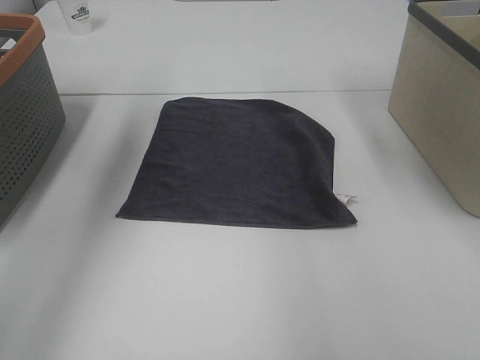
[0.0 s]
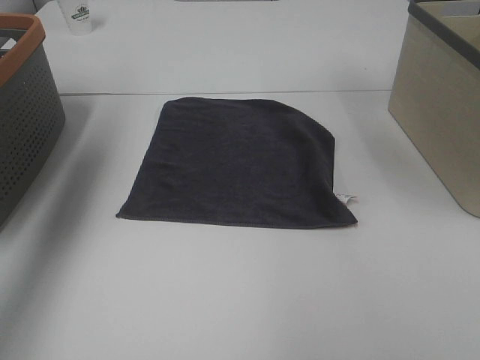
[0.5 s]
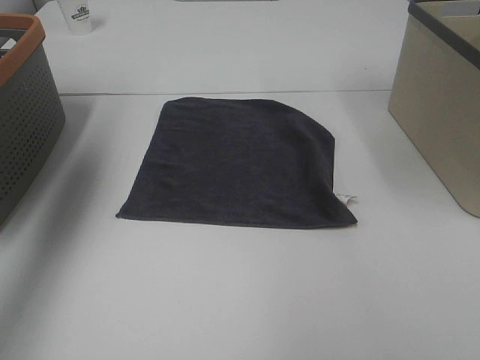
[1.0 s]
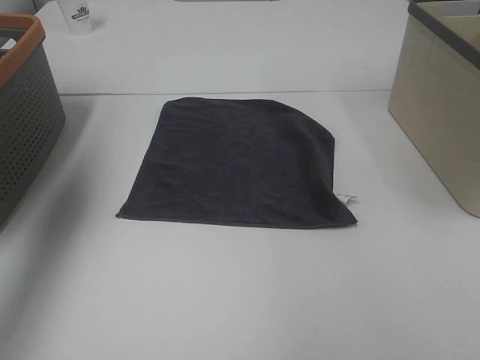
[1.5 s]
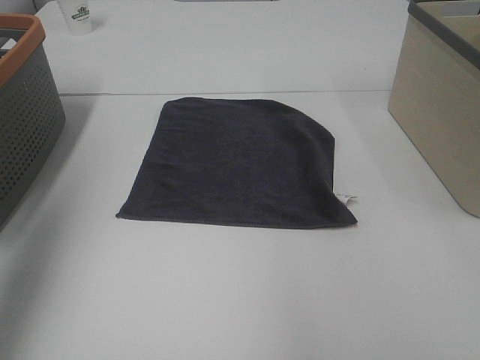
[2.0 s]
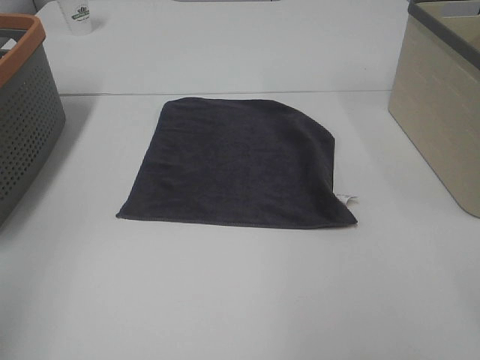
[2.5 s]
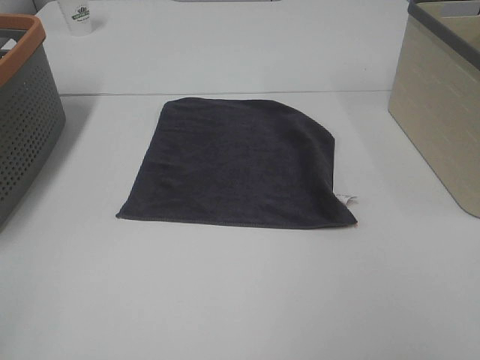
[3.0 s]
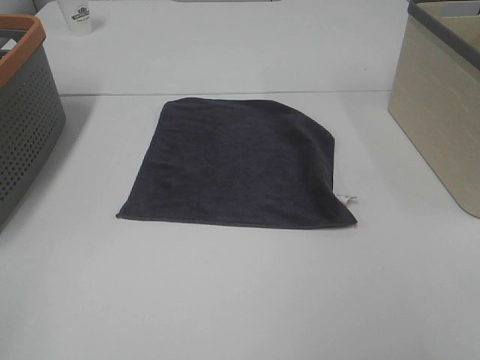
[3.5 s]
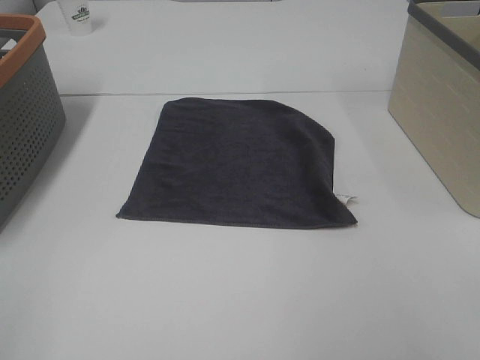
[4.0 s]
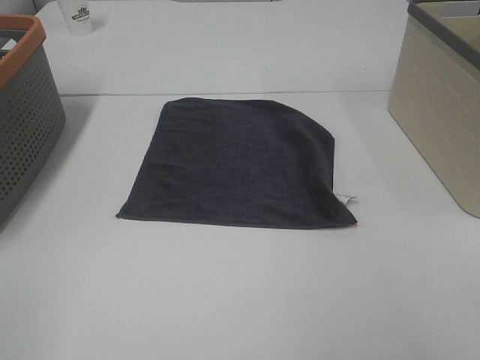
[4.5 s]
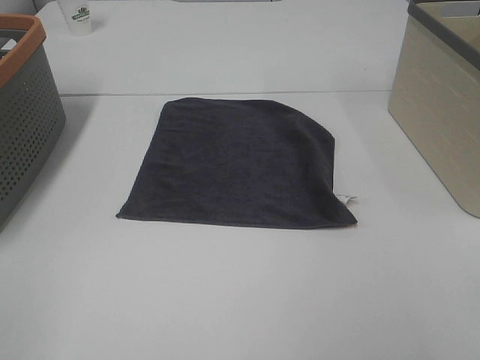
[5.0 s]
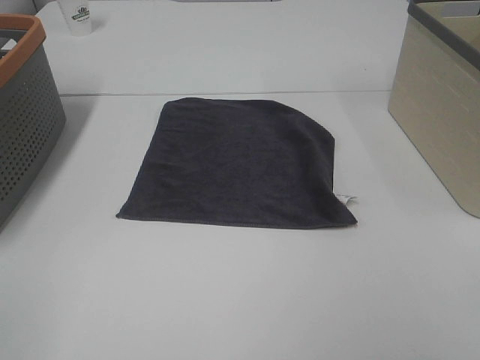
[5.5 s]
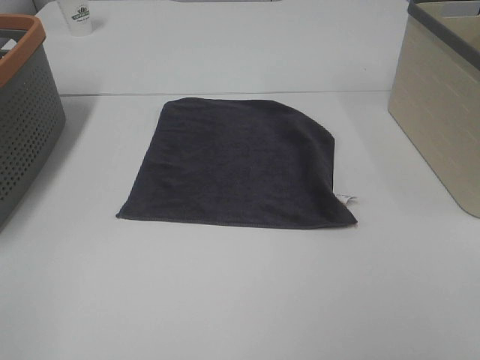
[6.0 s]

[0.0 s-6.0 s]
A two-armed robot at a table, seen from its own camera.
Task of the whole recording: Remove the towel and place it.
0.0 to 2.0 s: The left gripper is displaced backward by about 20 cm.
2.0 to 4.0 s: The left gripper goes some 25 cm backward and downward.

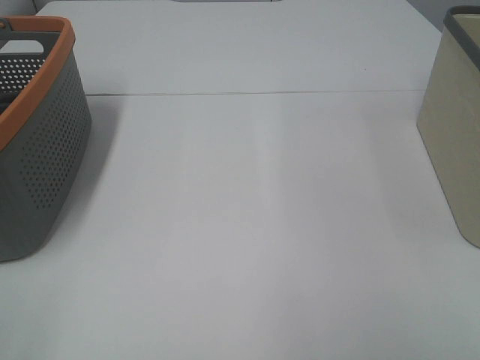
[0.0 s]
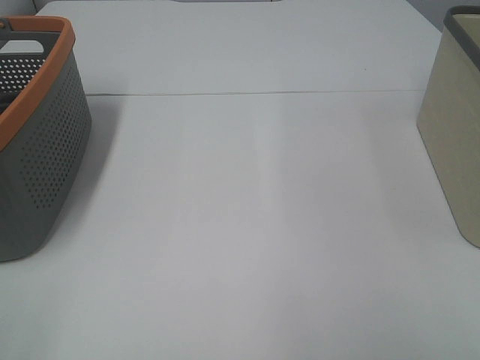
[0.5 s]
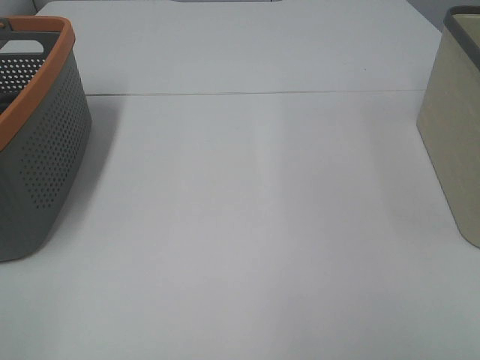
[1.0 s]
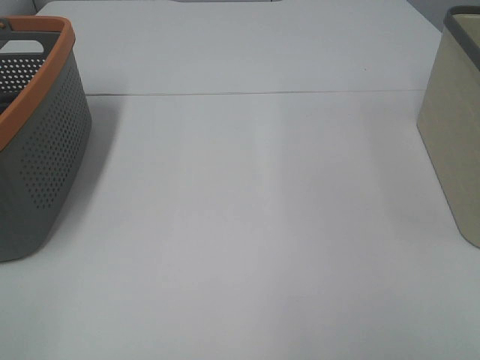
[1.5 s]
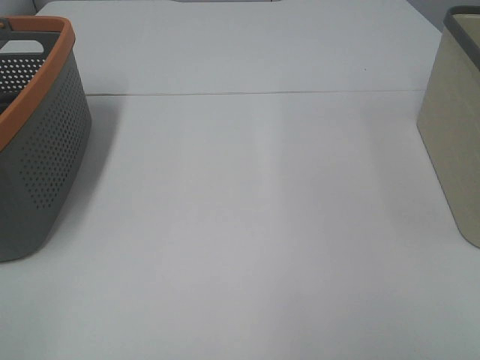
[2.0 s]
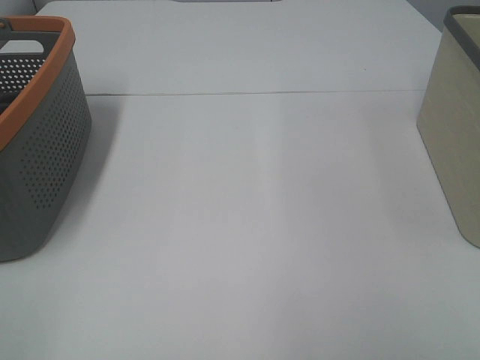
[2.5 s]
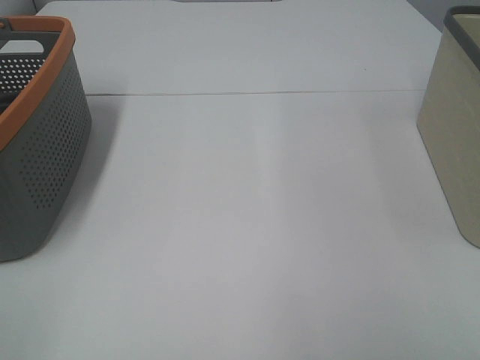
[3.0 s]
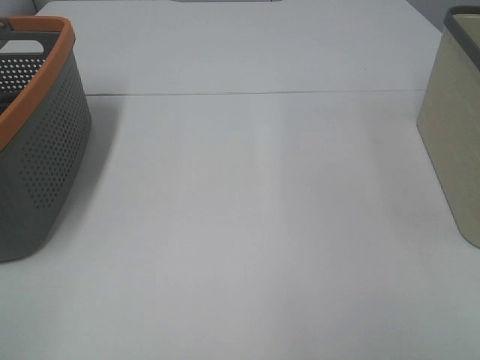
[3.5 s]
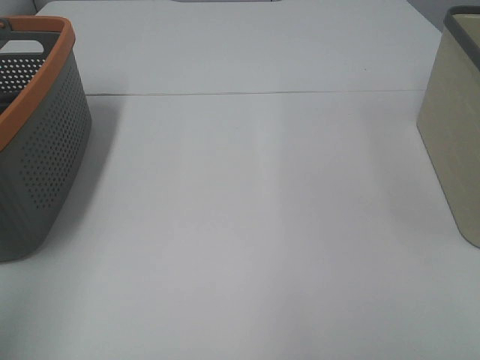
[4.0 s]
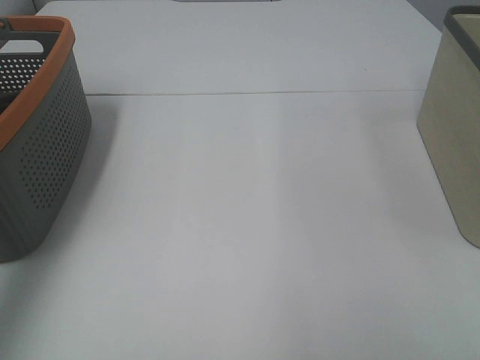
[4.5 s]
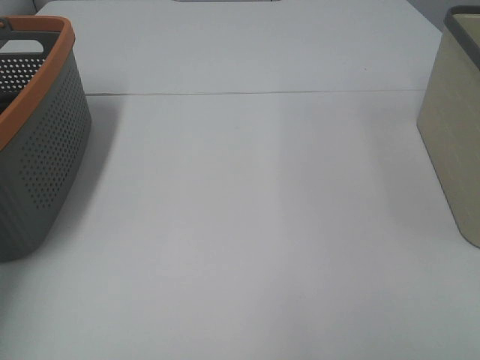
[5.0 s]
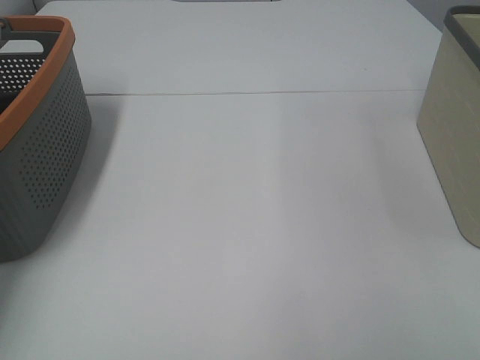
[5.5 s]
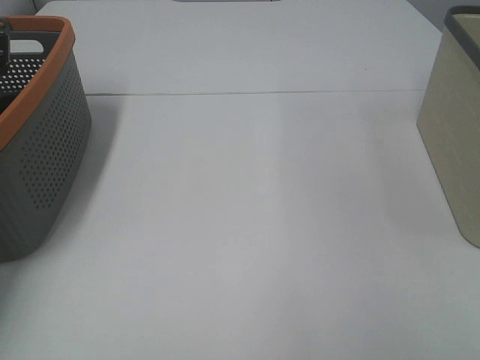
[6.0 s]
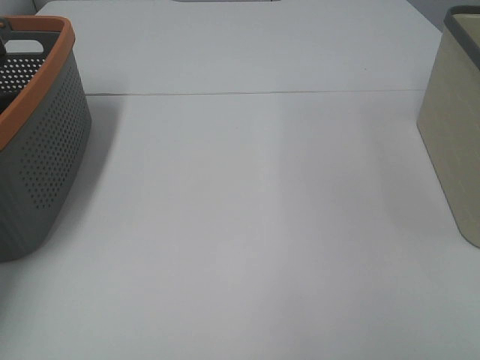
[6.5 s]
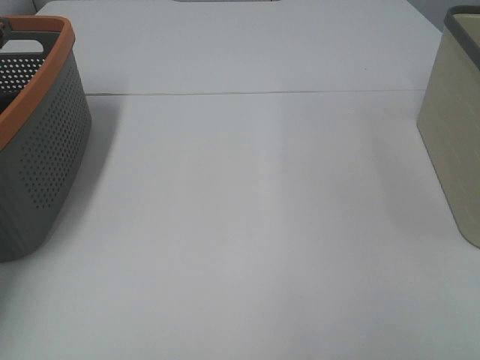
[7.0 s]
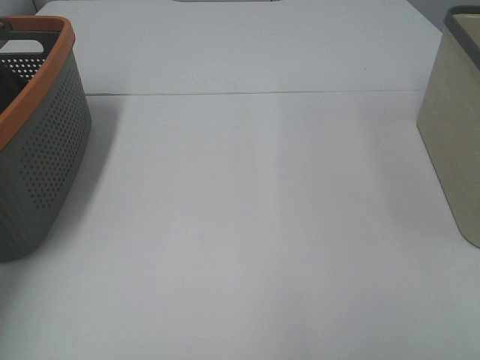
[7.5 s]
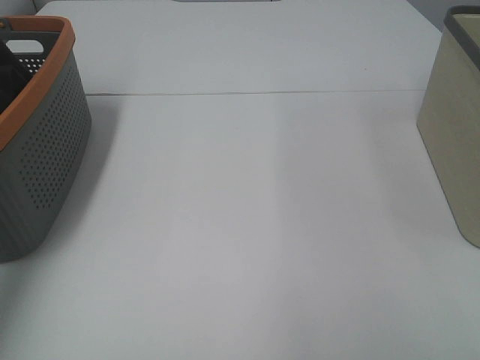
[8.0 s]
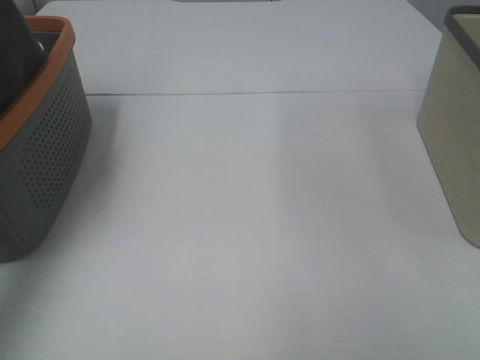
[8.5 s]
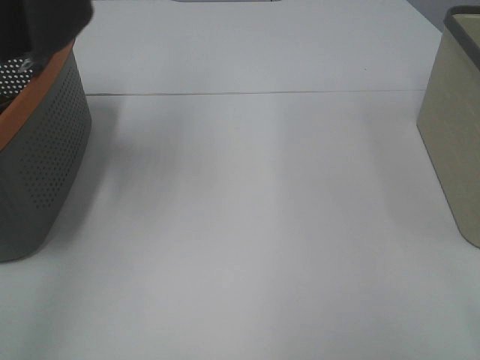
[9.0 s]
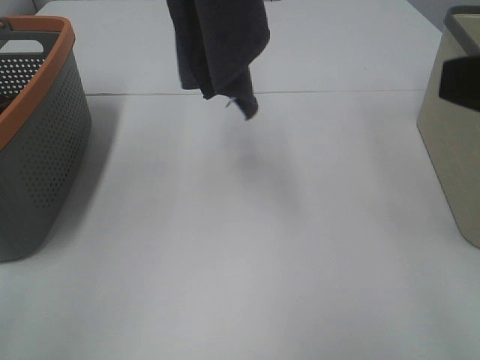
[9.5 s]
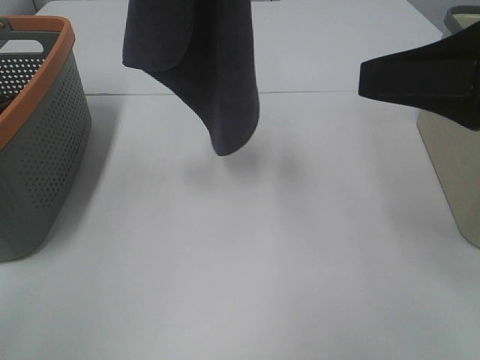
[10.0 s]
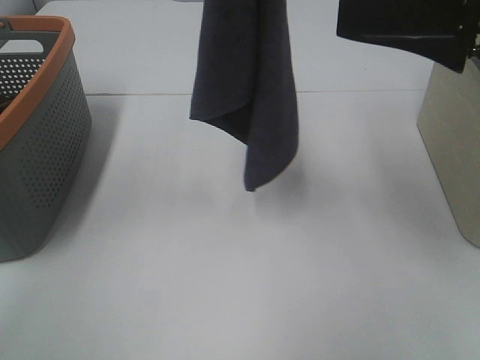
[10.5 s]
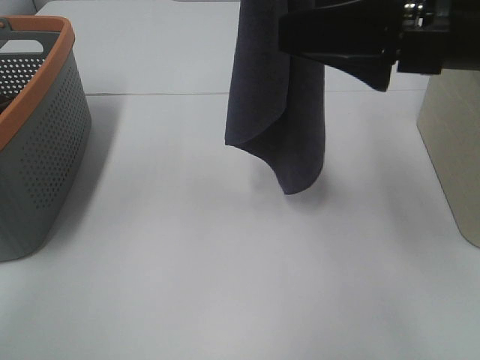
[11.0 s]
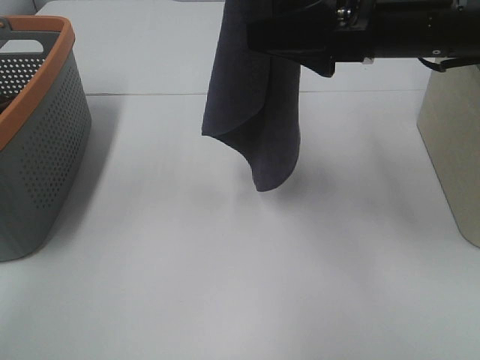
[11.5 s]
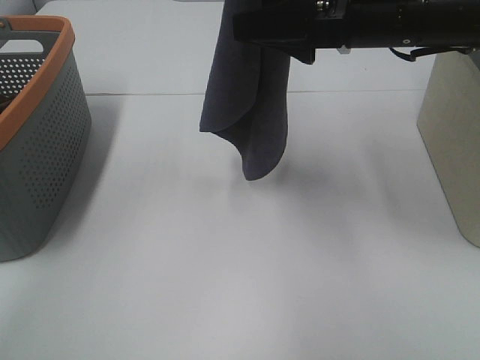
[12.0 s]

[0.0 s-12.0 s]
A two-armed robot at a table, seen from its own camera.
Task of the whole recording: Remove the towel and place it.
0.0 to 2.0 s: Both grippers stay put.
2.0 to 4.0 s: The left gripper travels upward and forward by some 15 cm.
4.0 to 6.0 s: The left gripper shifts about 40 cm forward and downward, and closes its fingers.
8.0 to 10.0 s: The left gripper heads to the right, covering some 25 cm. The right gripper heads forward, covering about 20 cm.
10.0 to 12.0 s: The left gripper shifts by approximately 5 cm. Meanwhile the right gripper shifts roughly 15 cm forward and to the left.

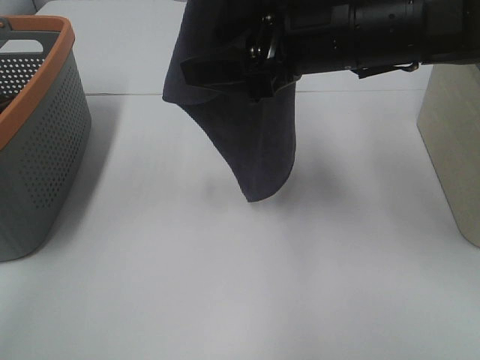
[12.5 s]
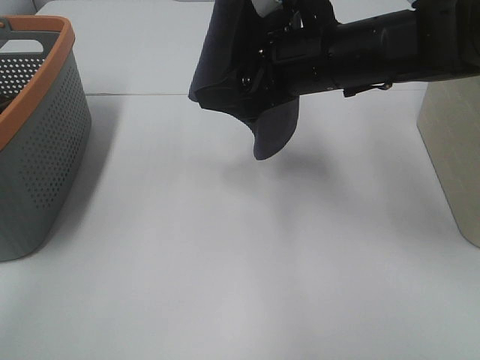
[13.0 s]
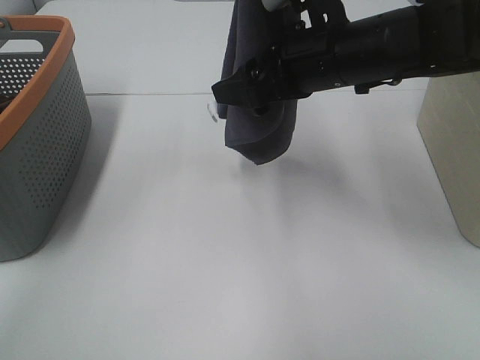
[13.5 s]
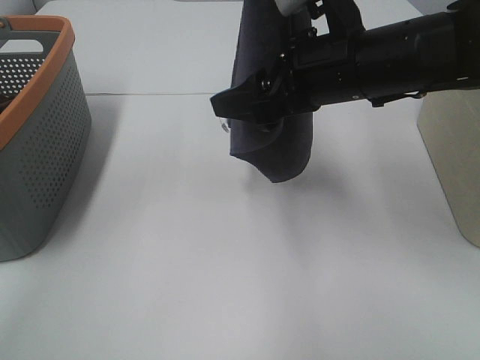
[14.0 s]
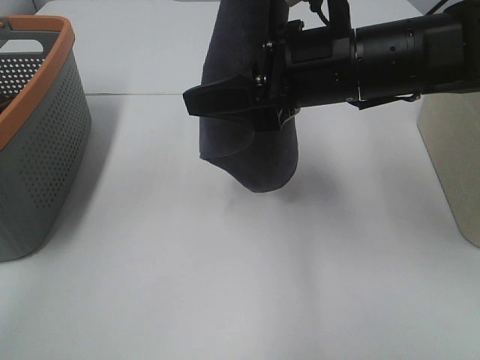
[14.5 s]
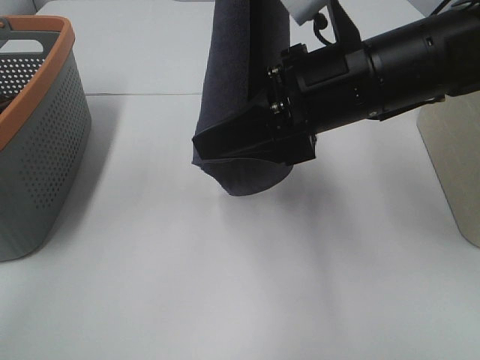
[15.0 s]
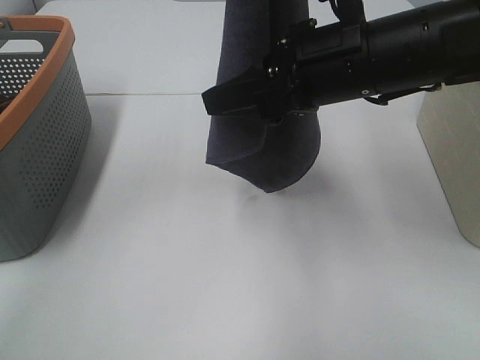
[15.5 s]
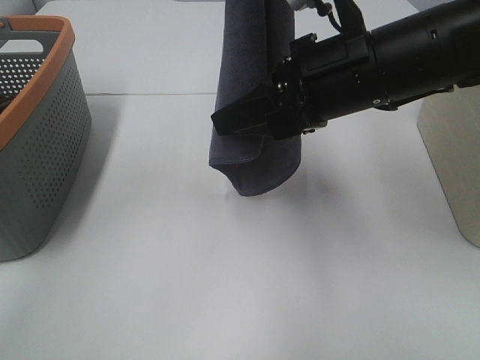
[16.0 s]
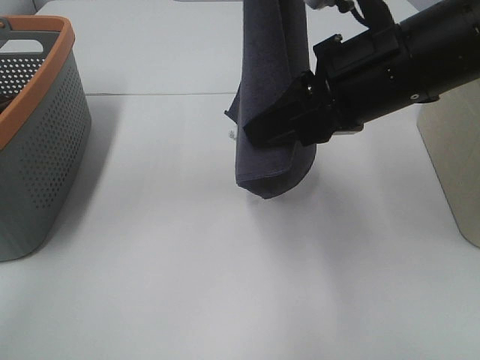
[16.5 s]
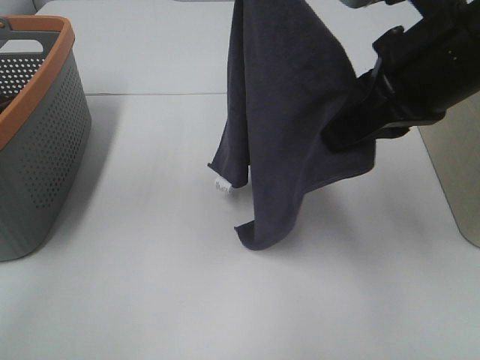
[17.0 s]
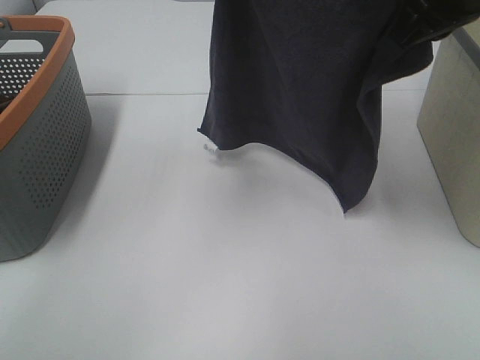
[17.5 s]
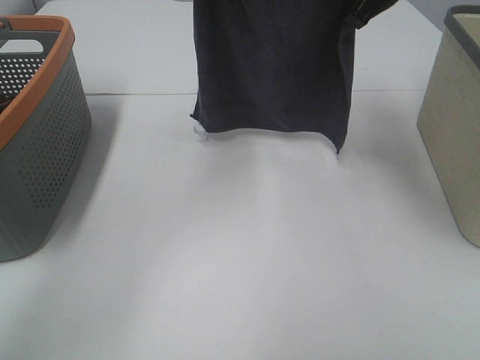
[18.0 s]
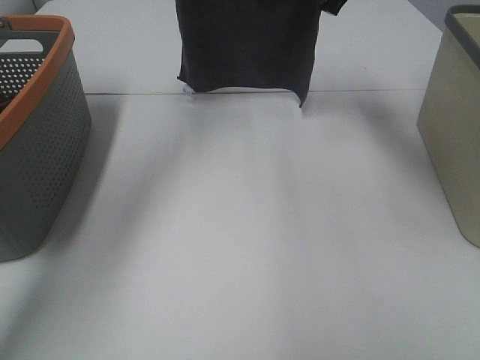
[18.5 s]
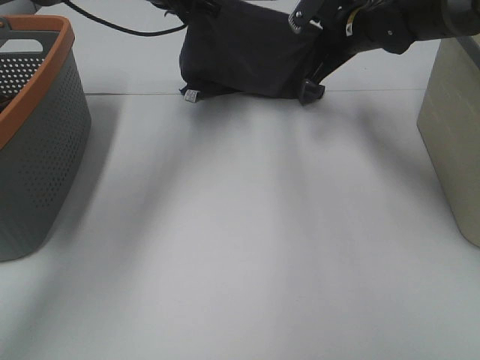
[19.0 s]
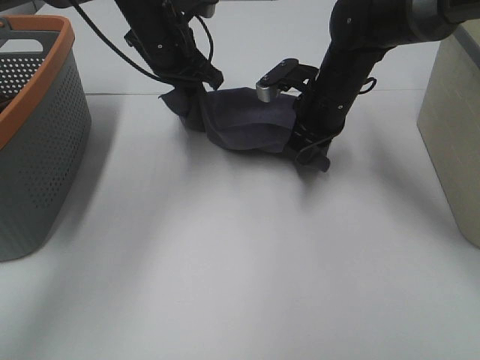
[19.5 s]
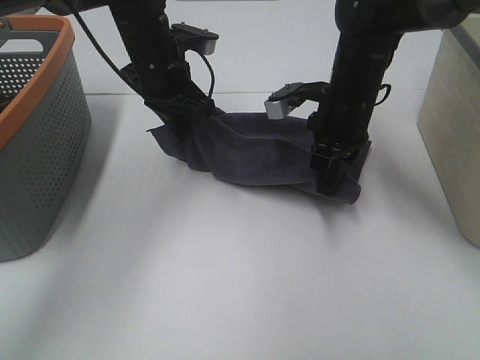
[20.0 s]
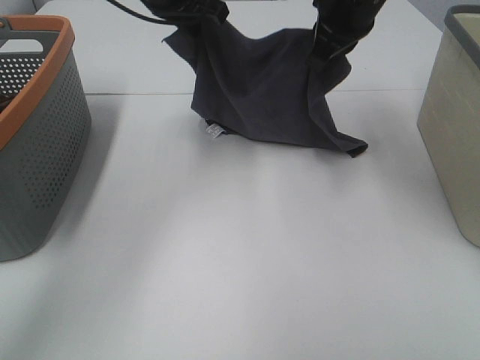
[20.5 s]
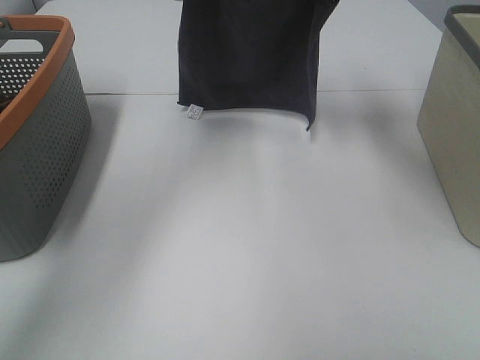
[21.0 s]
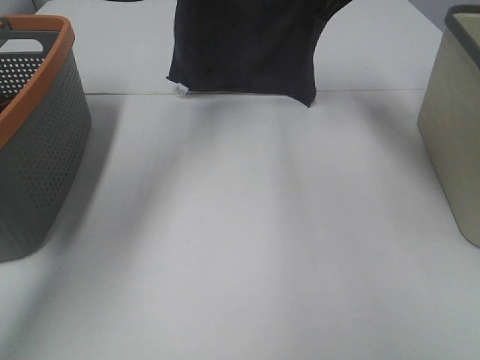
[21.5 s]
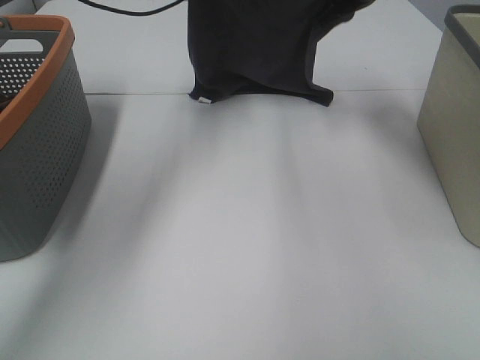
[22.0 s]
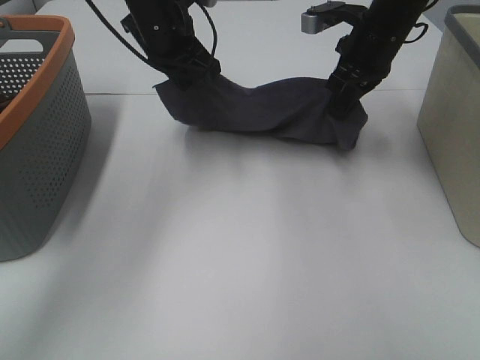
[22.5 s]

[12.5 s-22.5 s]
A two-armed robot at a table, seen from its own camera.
Task of the whole recording: Remove the towel and place it.
Step, 12.5 to 14.5 s: Right hand: grab a corner of the grey towel and straighten it.
Step, 15.0 to 19.5 s: Left hand: spread the grey towel flat on the table.
Step, 15.0 to 19.5 s: Right hand: spread the grey towel flat on the table.
14.5 to 16.5 s: The right gripper closes up.
16.5 to 18.5 s: The left gripper shifts about 25 cm forward and downward. The right gripper goes approximately 25 cm forward.
18.5 to 20.5 s: The grippers both shift backward by about 5 cm. The left gripper goes downward and returns, about 10 cm each way. The right gripper goes downward and returns, about 15 cm each way.
20.5 to 22.5 s: The two grippers go about 5 cm downward.
